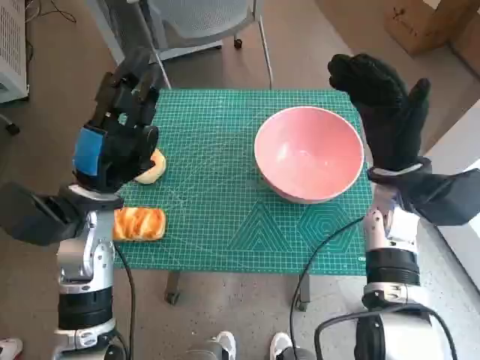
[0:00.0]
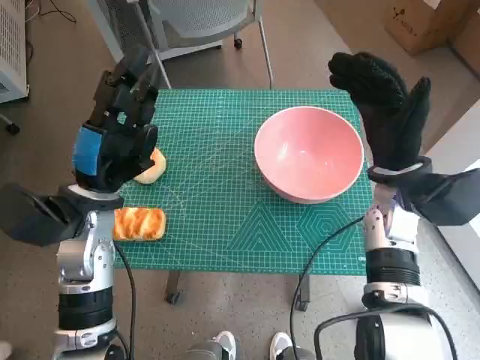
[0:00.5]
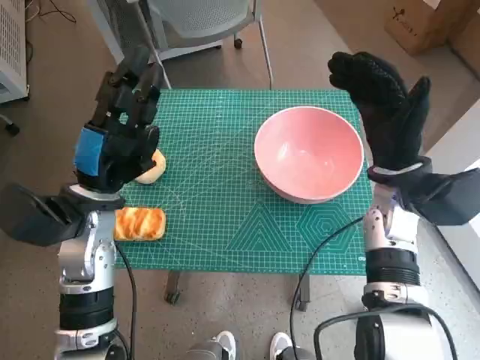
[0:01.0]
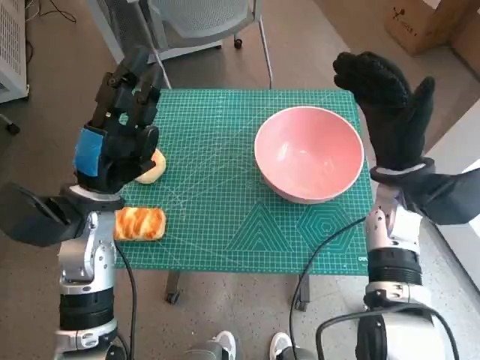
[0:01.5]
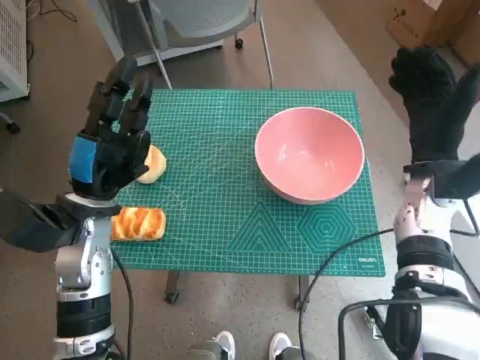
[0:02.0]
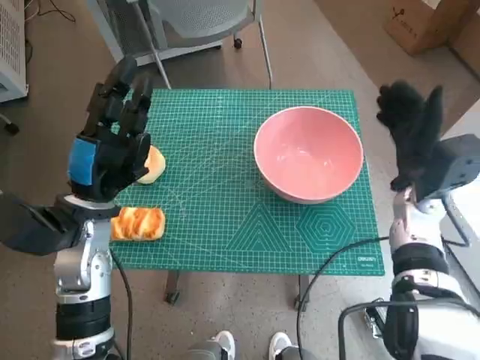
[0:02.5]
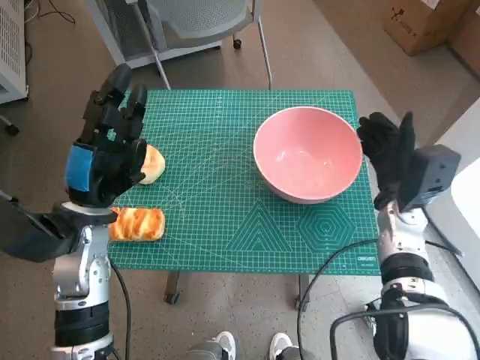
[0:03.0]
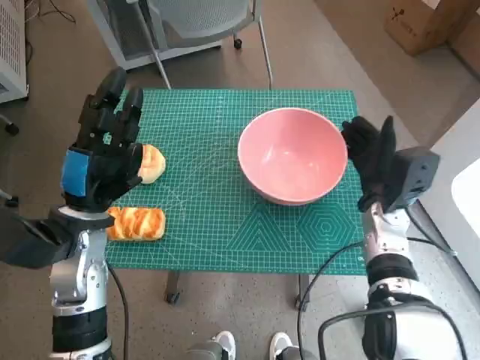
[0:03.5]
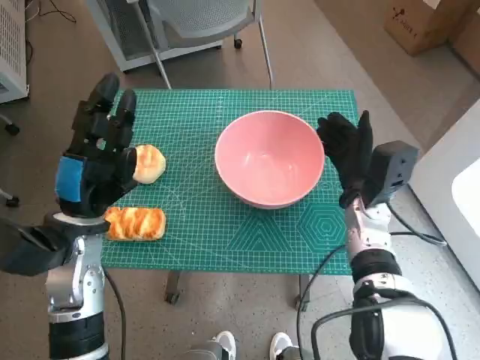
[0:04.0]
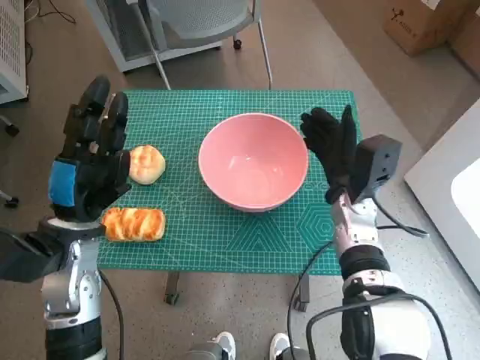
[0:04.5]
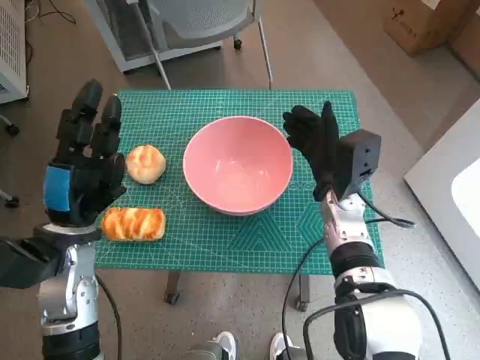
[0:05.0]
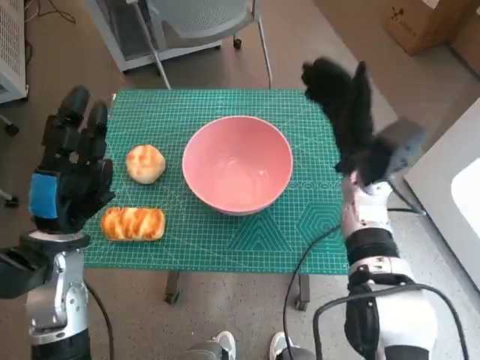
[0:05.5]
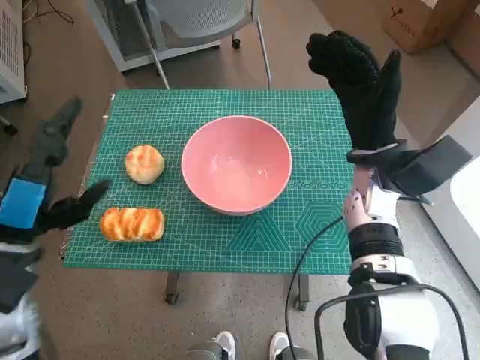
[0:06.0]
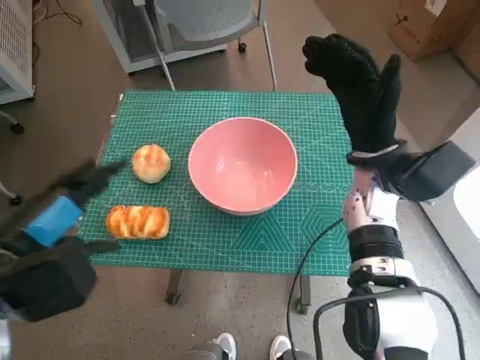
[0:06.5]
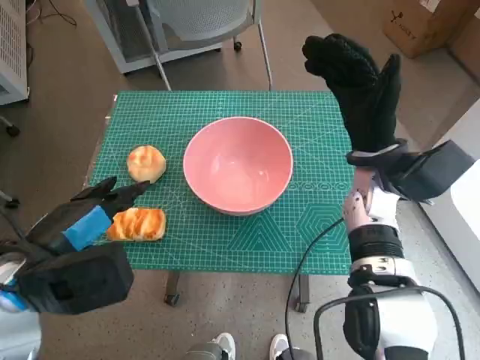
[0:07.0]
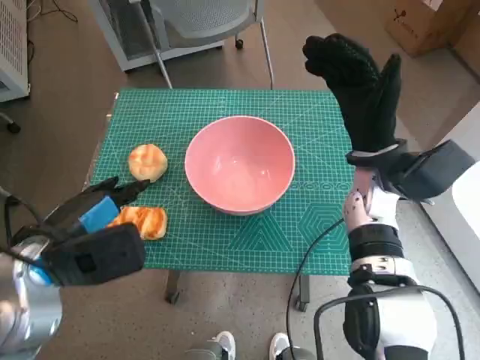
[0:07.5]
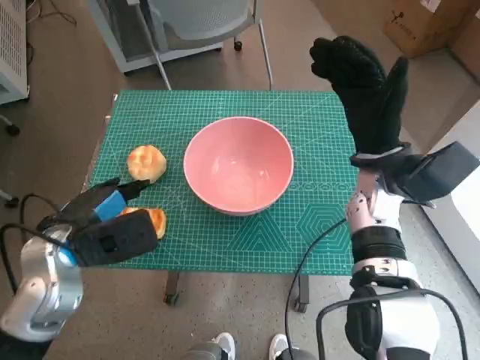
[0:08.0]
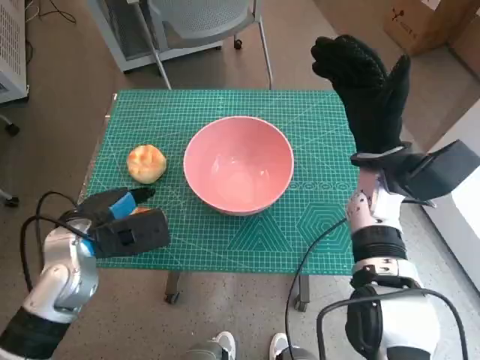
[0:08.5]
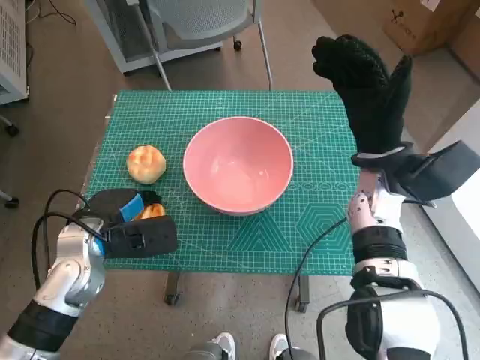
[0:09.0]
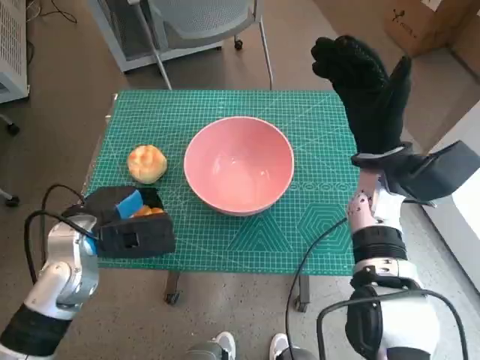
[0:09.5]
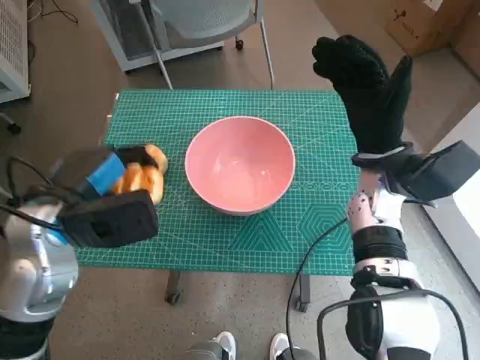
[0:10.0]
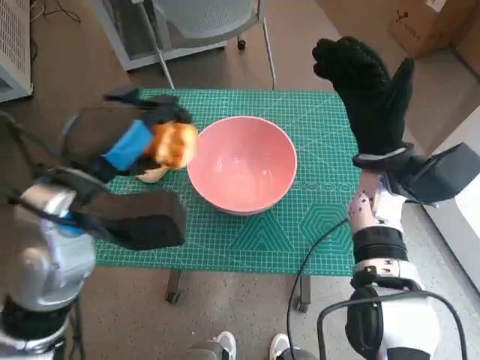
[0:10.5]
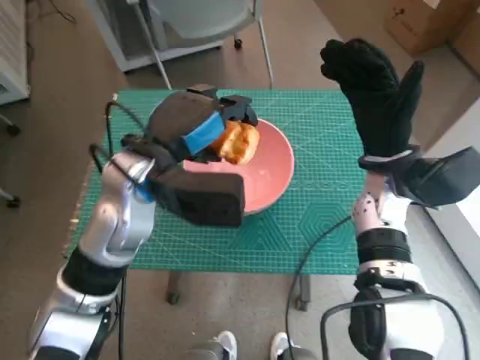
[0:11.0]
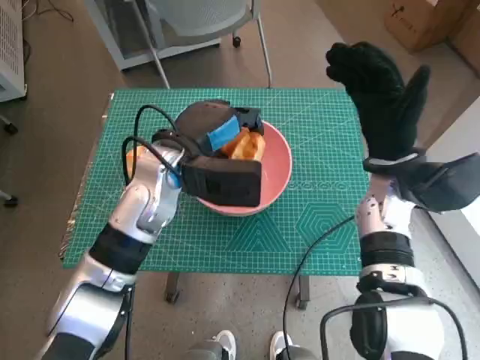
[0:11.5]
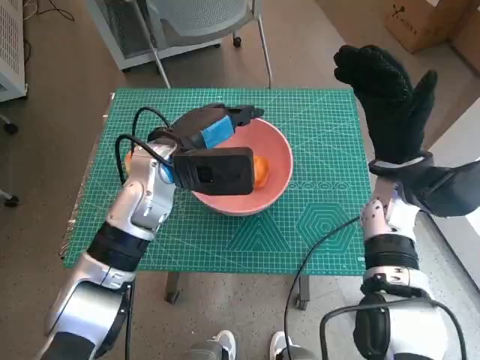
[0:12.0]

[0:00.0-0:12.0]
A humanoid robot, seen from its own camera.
Step, 0:00.0 to 0:05.0: Move the pink bowl to the center of table with right hand.
Step, 0:05.5 to 0:09.0: Grasp the long bread with left hand.
0:02.0 to 0:04.0: The right hand heads downward and to the left, covering about 10 cm.
0:04.0 to 0:06.0: The left hand moves some 5 cm. Meanwhile the right hand travels upward by approximately 10 cm.
0:06.0 to 0:08.0: The left hand ends up some 5 cm from where it was.
0:08.0 to 0:10.0: The hands move only a little.
0:10.0 to 0:12.0: The left hand heads to the right and forward, covering approximately 15 cm.

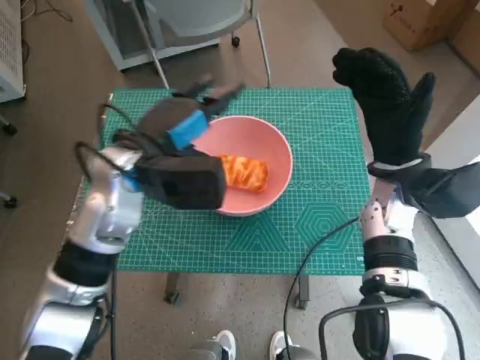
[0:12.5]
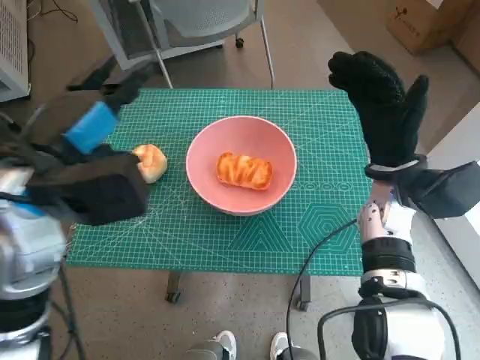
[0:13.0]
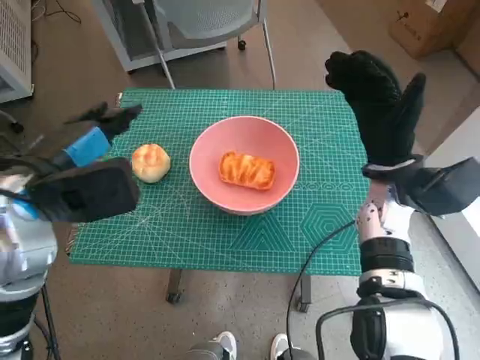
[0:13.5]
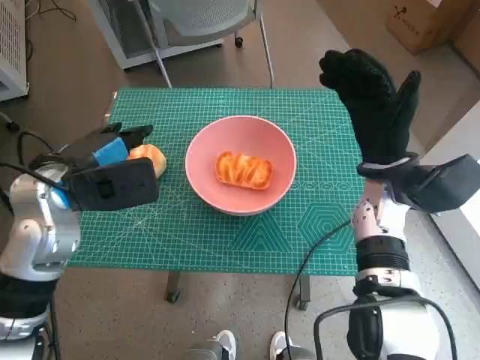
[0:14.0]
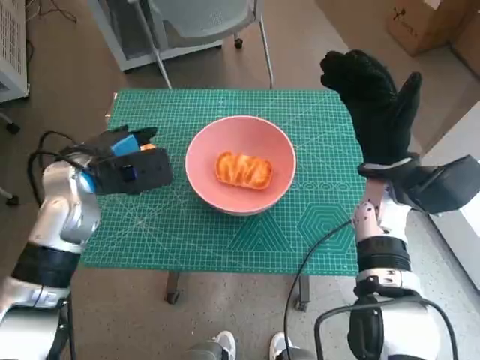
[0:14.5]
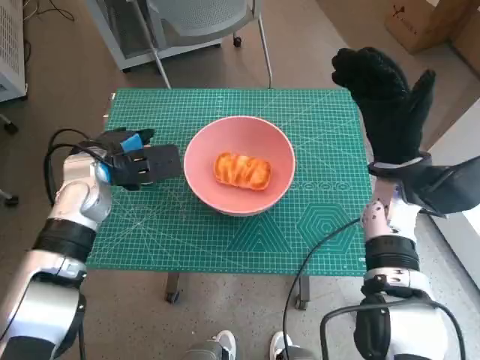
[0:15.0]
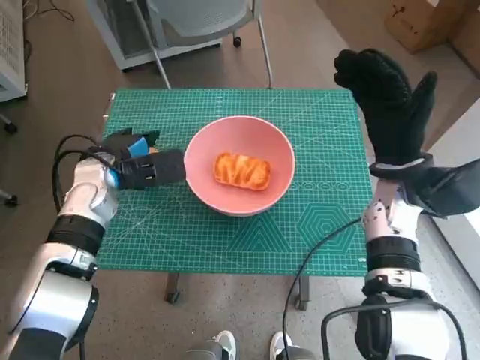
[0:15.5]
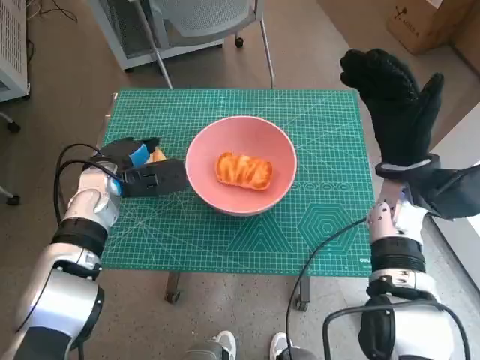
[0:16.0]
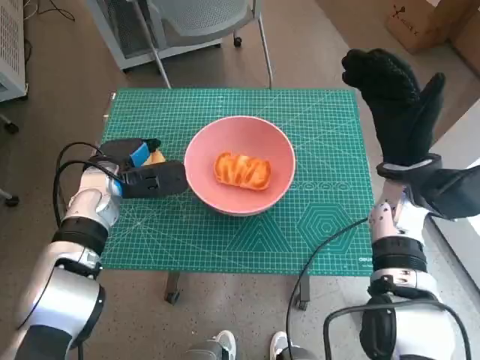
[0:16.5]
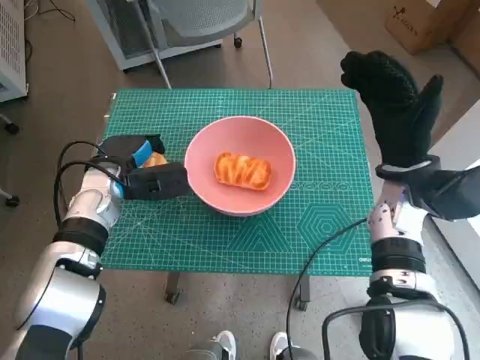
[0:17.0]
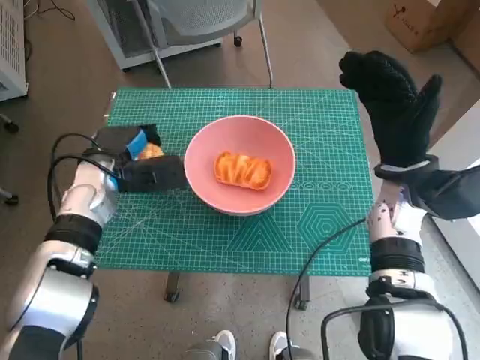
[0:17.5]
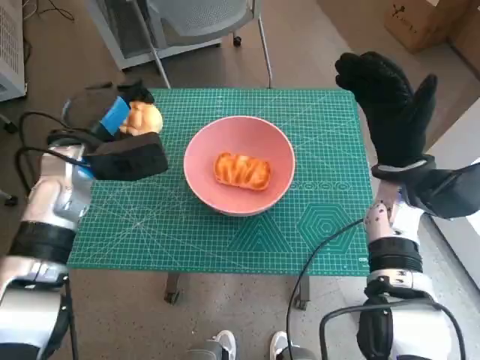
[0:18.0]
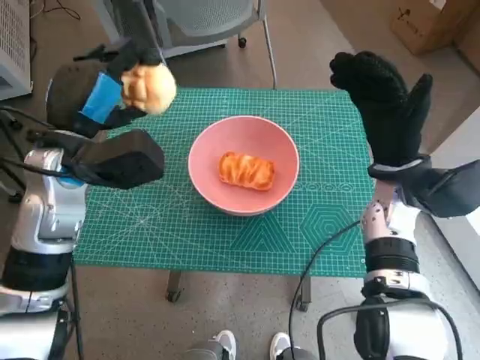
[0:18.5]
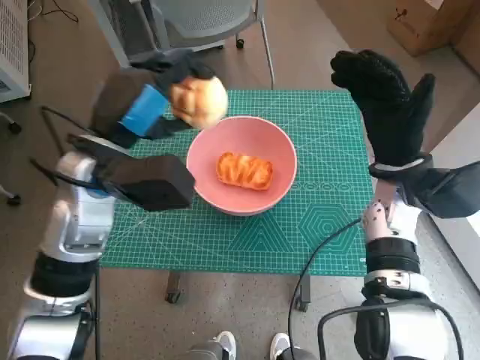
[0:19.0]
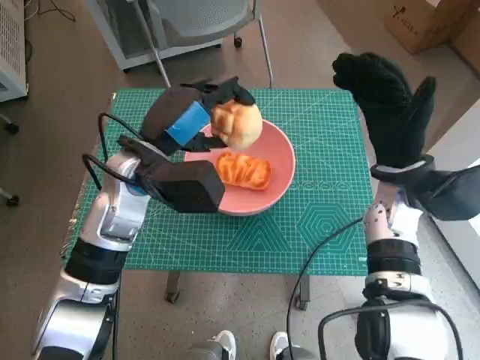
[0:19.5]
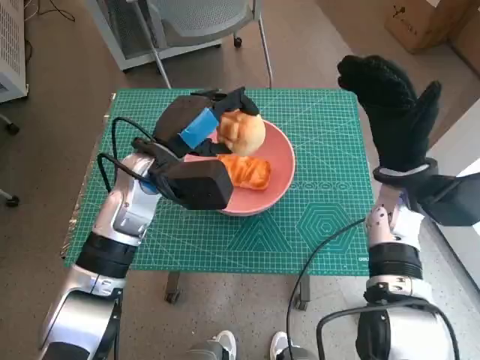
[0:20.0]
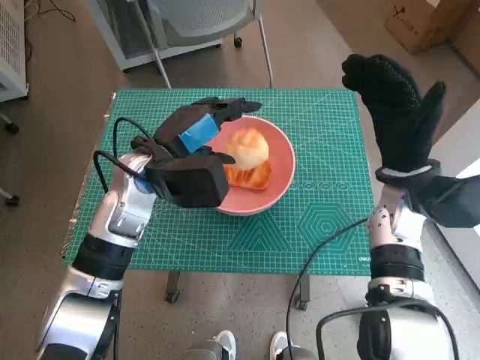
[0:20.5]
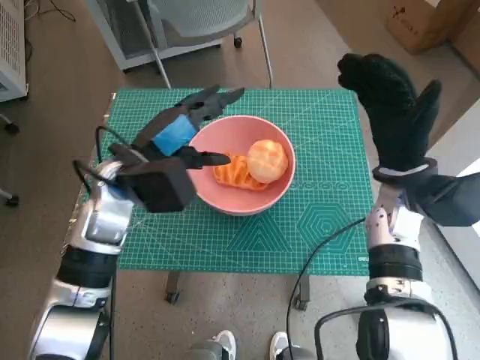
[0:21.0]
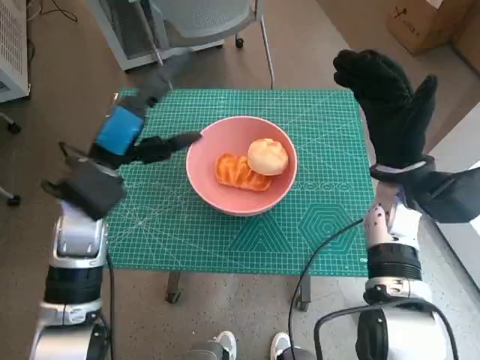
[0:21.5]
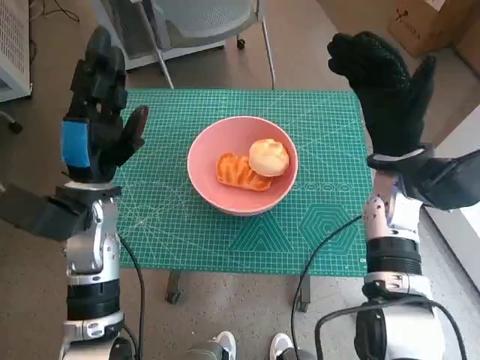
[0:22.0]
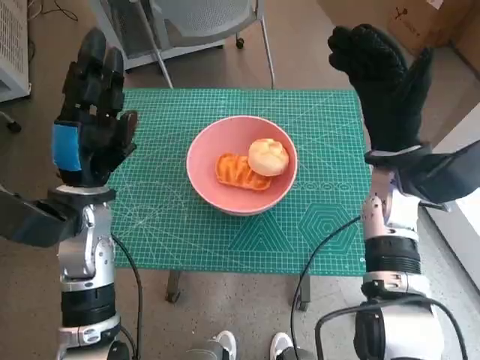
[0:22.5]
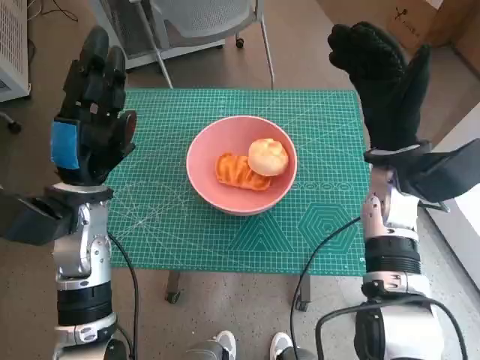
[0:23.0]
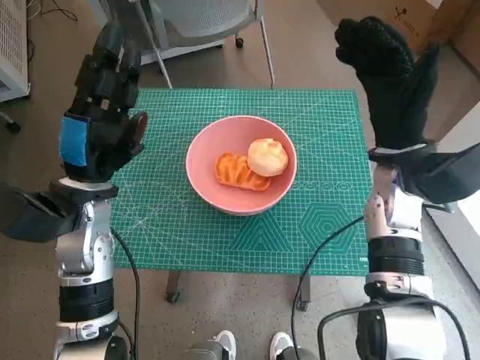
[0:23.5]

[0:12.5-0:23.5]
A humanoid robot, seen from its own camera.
Step, 0:12.5 to 0:16.5: Grasp the round bread with left hand.
Step, 0:17.0 to 0:20.5: Place the round bread in pink bowl with left hand.
0:12.5 to 0:14.5: The left hand heads to the left, covering some 10 cm.
0:14.5 to 0:16.0: The left hand is displaced downward by some 5 cm.
0:16.0 to 0:18.0: The left hand heads upward, covering about 5 cm.
0:18.0 to 0:20.0: The left hand moves to the right, some 10 cm.
0:20.0 to 0:21.5: The left hand moves to the left, some 5 cm.

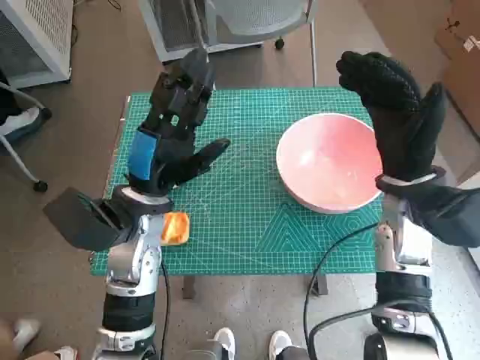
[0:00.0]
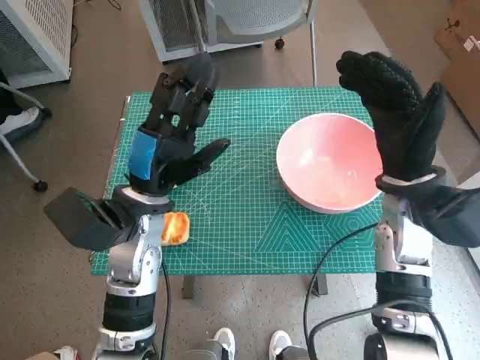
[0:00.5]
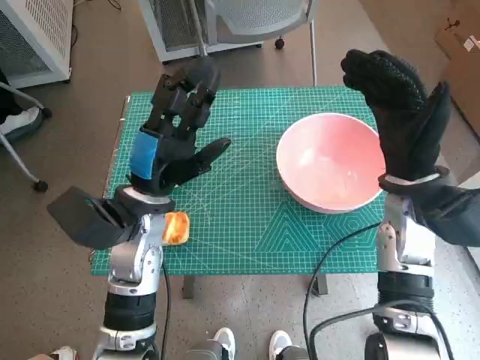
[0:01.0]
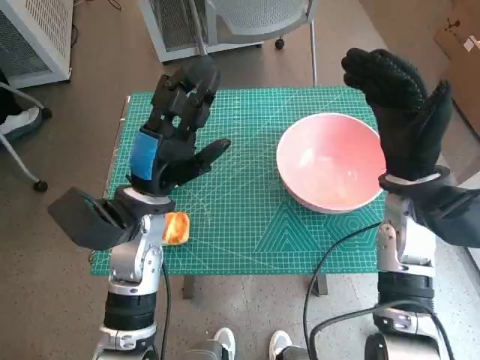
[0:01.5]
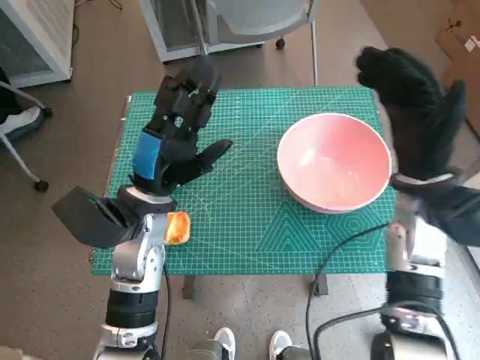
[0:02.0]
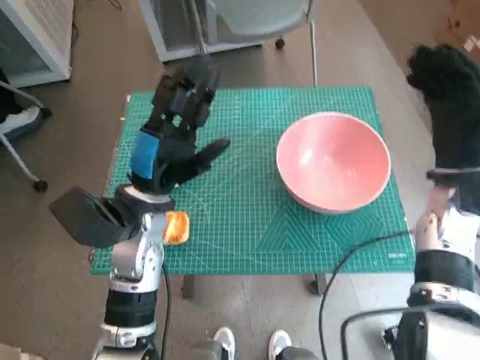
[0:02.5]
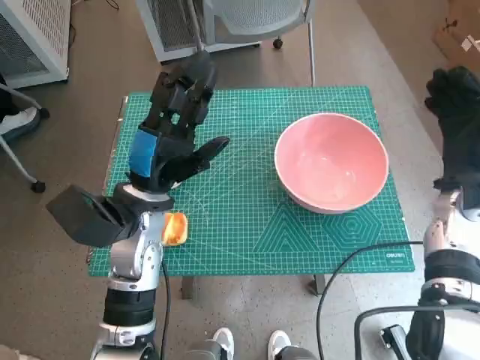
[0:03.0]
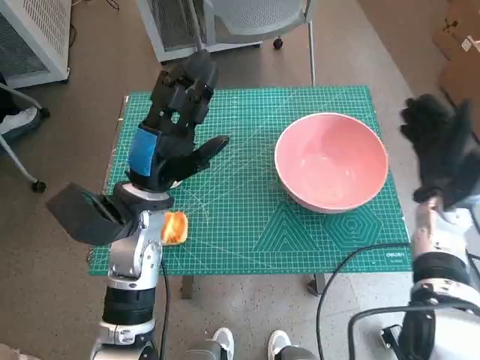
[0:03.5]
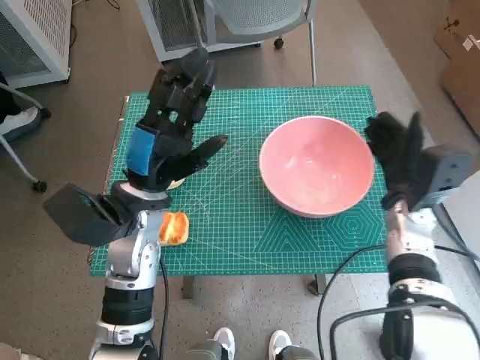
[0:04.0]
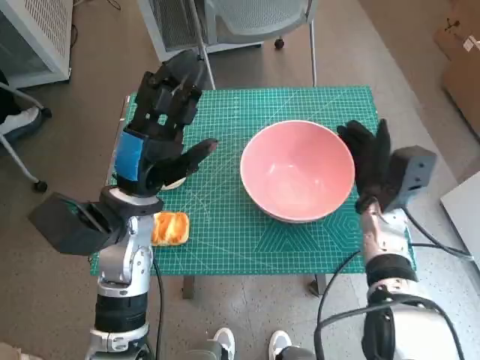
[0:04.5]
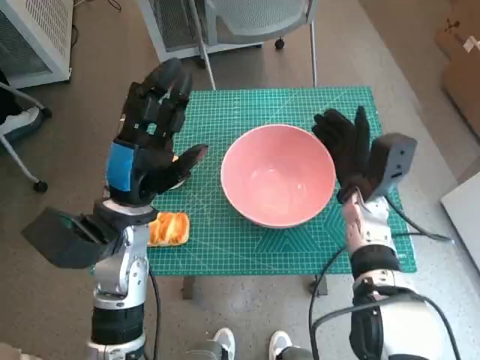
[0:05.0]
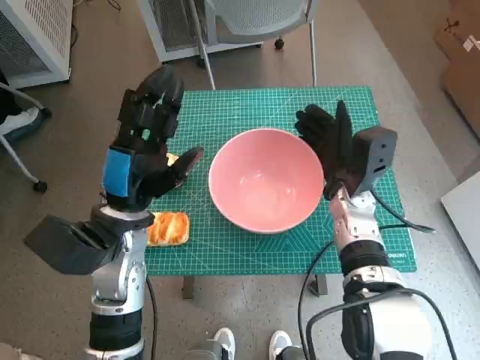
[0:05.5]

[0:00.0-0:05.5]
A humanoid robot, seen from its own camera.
0:02.0 to 0:03.5: The right hand travels downward and to the right by approximately 10 cm.
0:03.5 to 0:05.5: The right hand is displaced to the left by roughly 10 cm.
